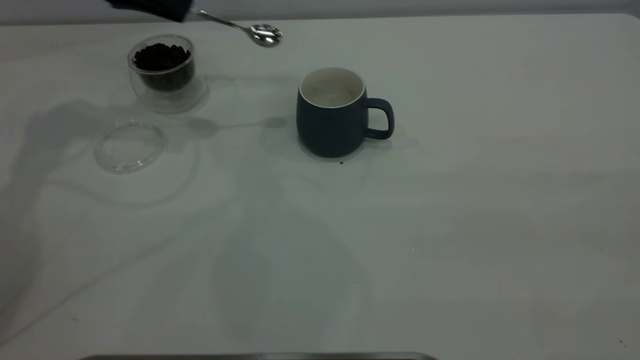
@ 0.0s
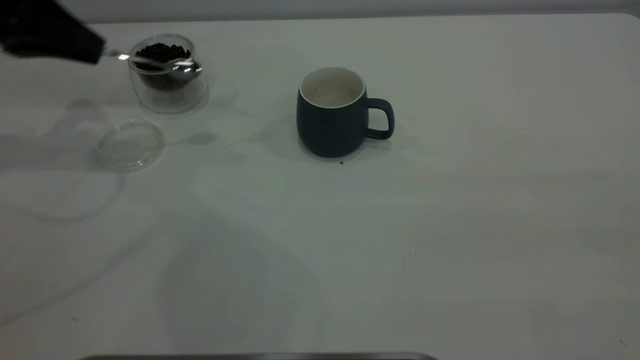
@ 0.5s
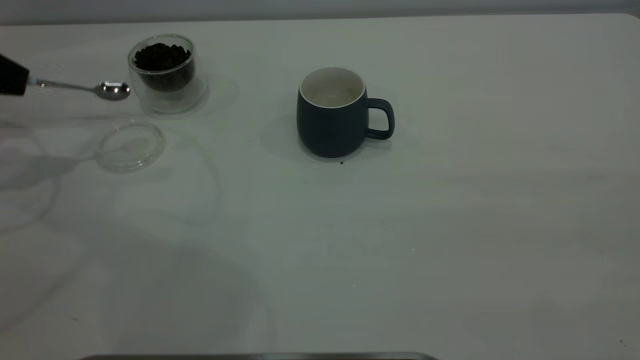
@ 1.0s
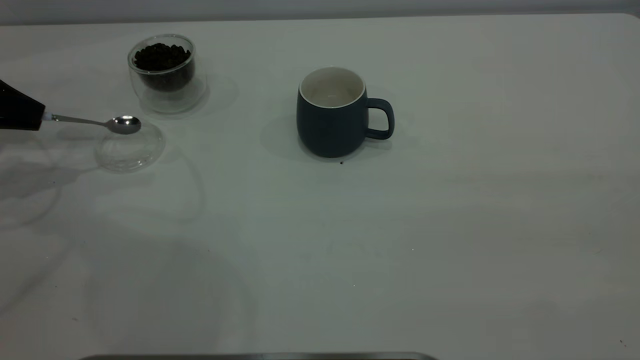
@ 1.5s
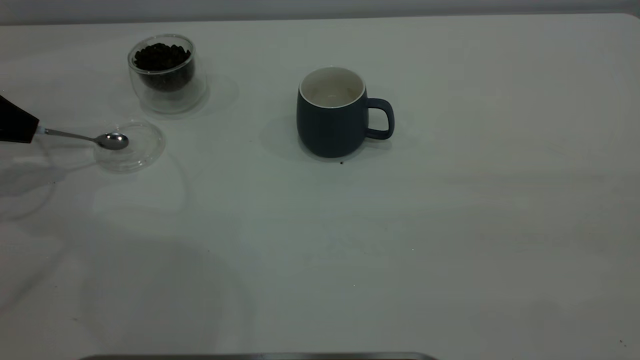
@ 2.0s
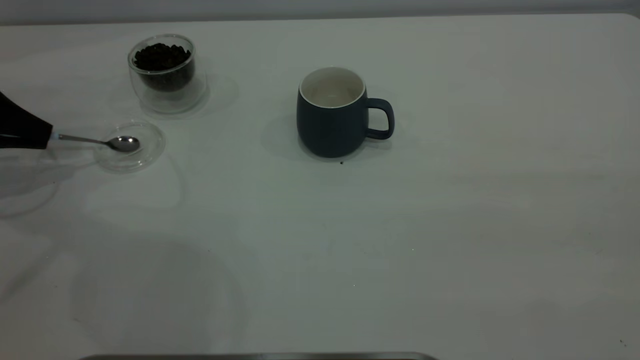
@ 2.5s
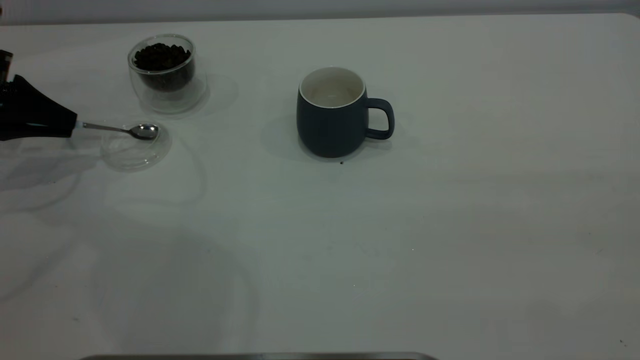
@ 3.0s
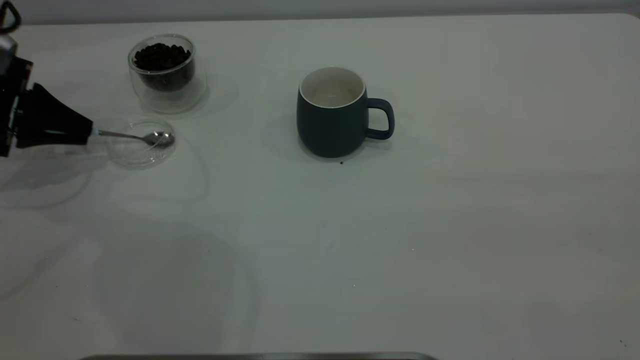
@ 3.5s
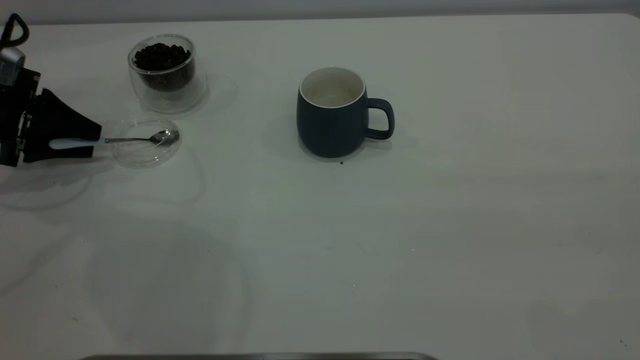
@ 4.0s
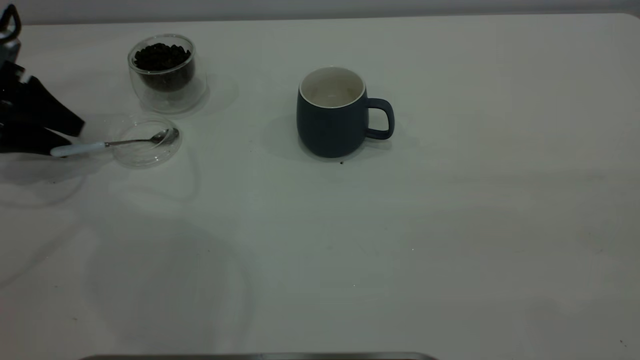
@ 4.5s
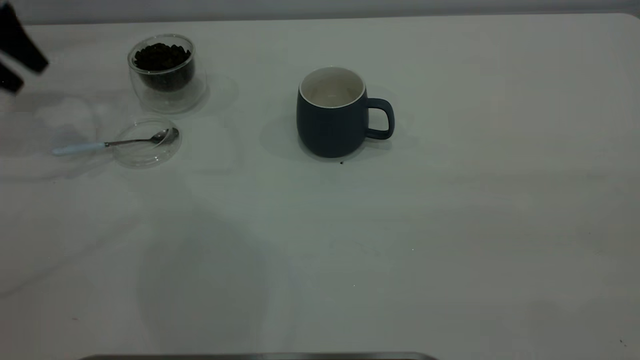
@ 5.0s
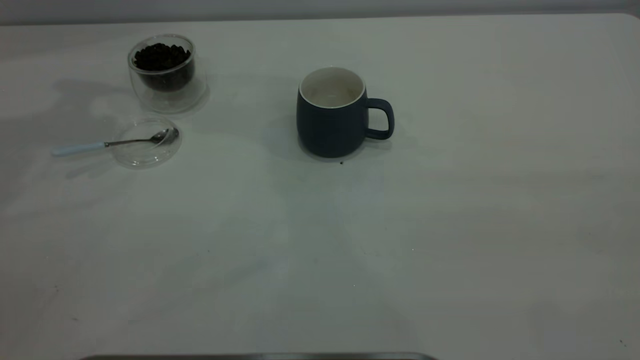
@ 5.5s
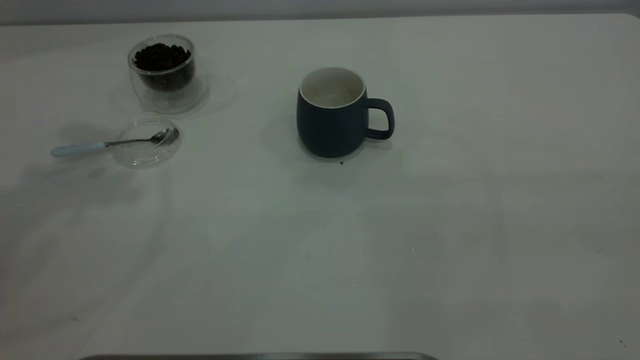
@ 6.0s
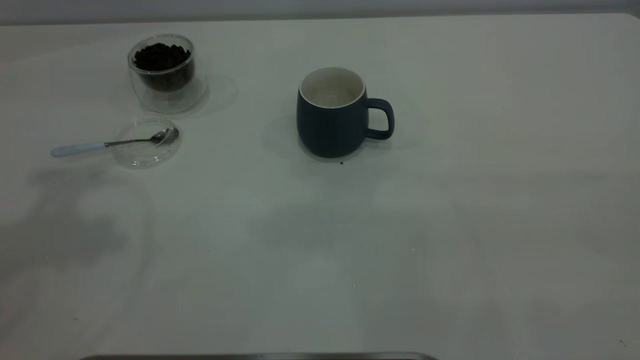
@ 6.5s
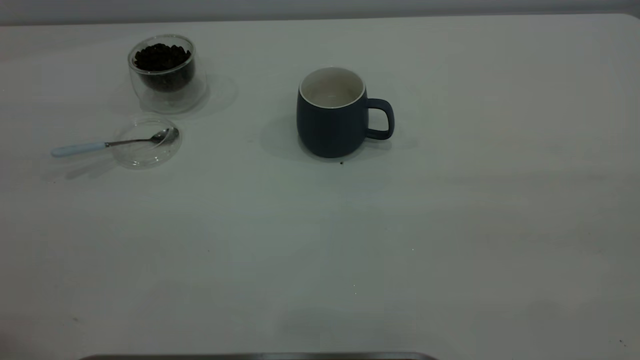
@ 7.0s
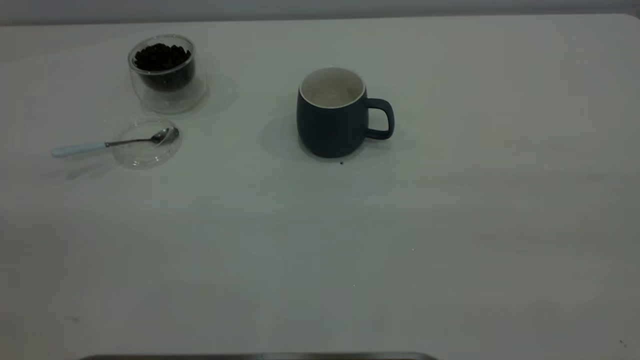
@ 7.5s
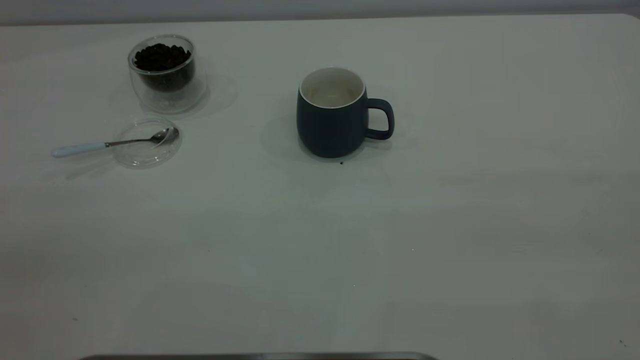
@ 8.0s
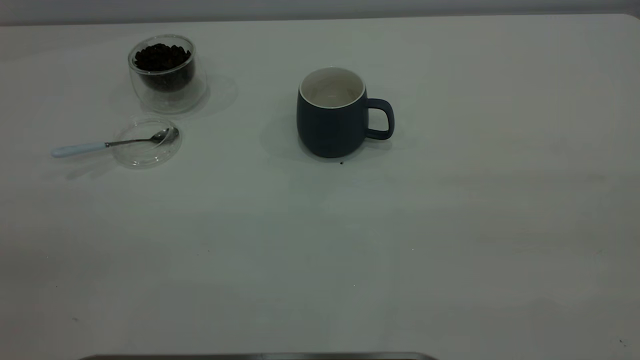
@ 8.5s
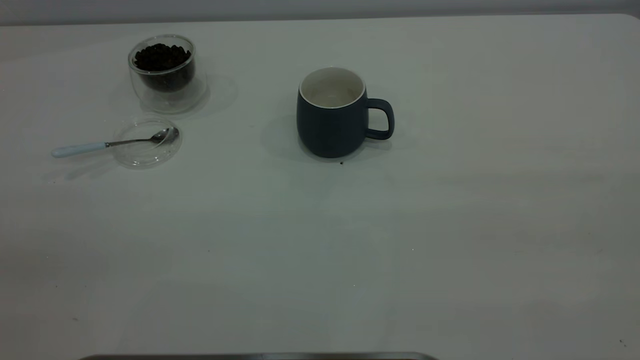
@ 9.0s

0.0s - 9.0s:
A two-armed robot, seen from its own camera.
Task of the whole recording: the right gripper place the grey cup in the center of the table, the left gripper take the blue spoon from the cup lid and scoop out the coffee beans from the coffee cup and put them into the grey cup, the left gripper put the spoon back into the cup lid.
Step, 0.0s - 5.0s: Place the spoon back in its original place.
0.0s - 2.0s: The left gripper is displaced to the left, downward and backward by about 20 cm.
2.0s - 4.5s: The left gripper opens its fingers.
4.5s - 7.0s: The left gripper heads backward, upward and to the right, covering approximately 50 cm.

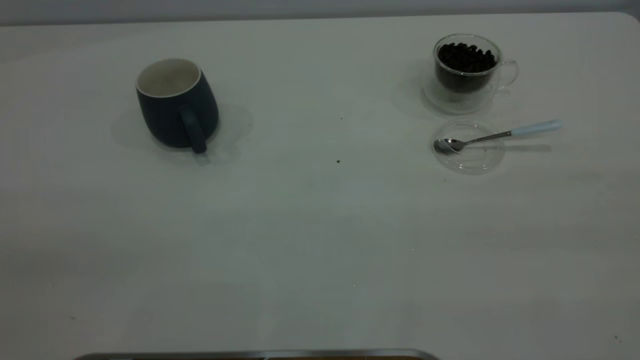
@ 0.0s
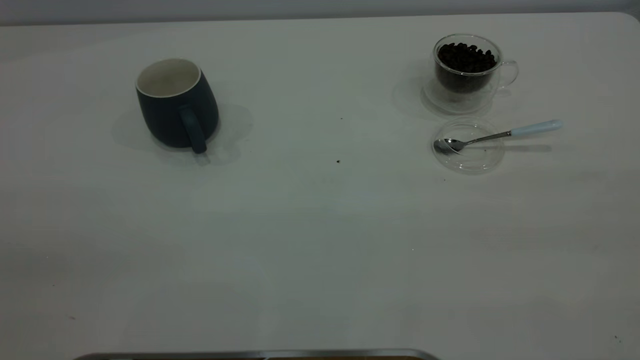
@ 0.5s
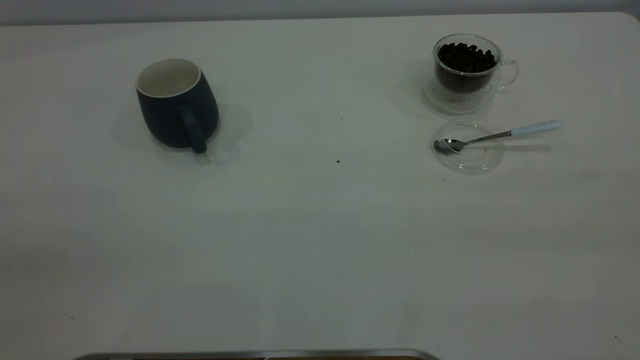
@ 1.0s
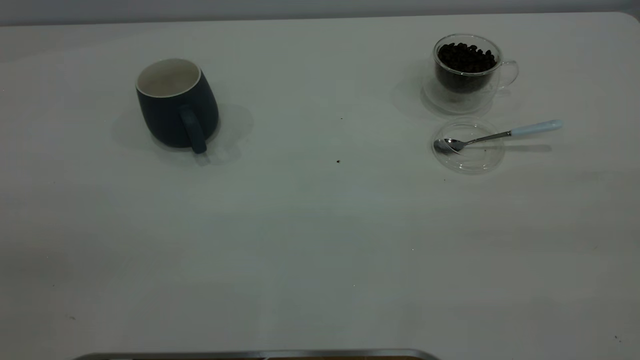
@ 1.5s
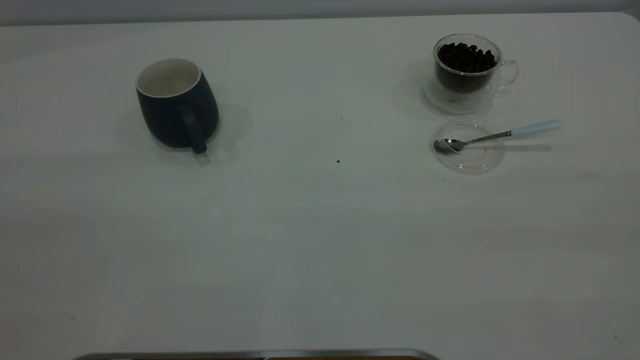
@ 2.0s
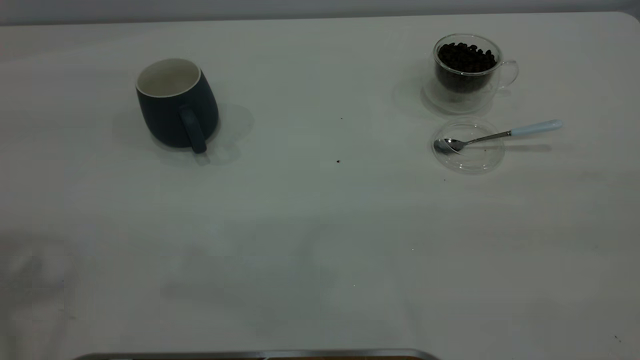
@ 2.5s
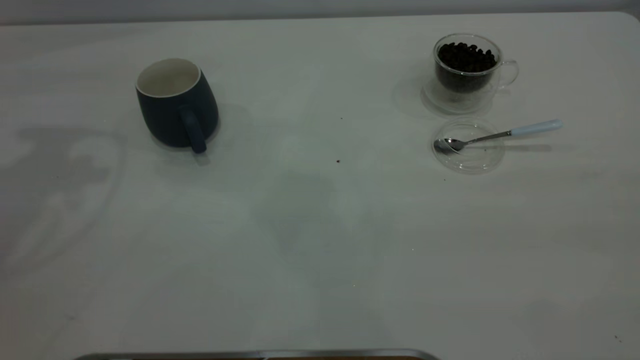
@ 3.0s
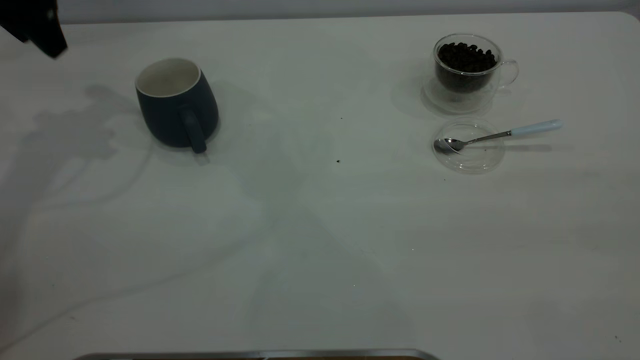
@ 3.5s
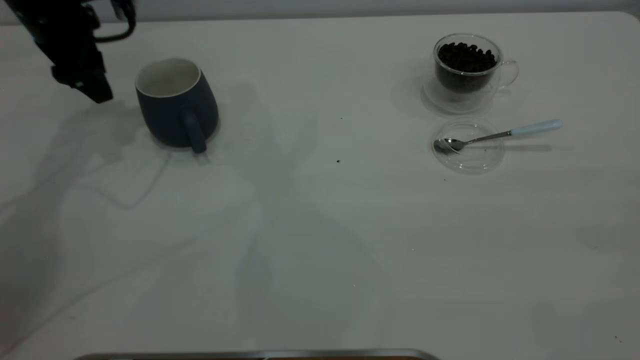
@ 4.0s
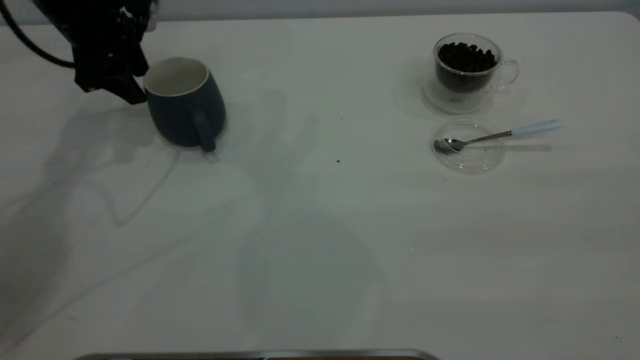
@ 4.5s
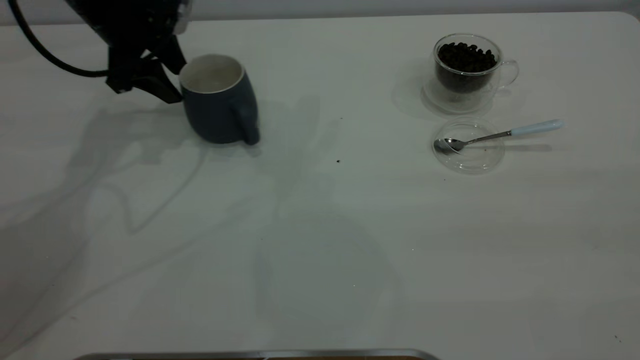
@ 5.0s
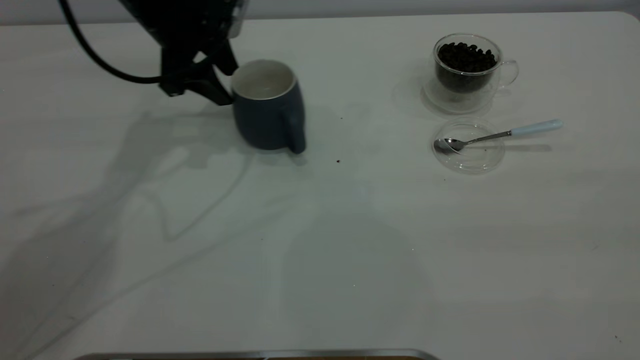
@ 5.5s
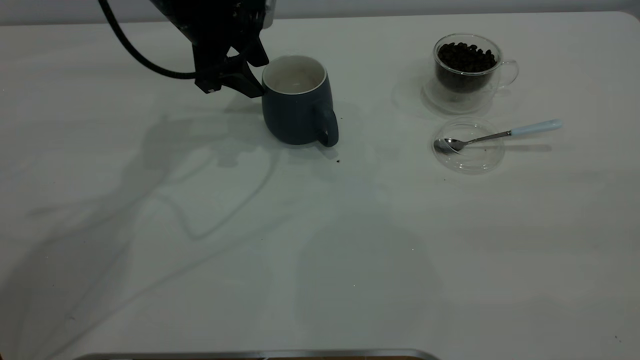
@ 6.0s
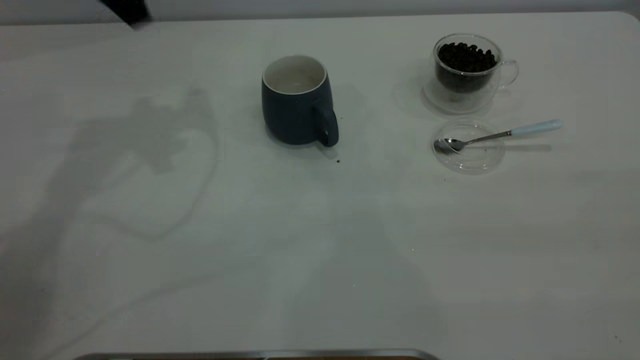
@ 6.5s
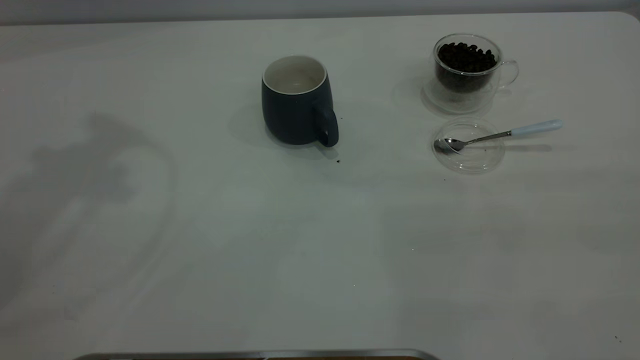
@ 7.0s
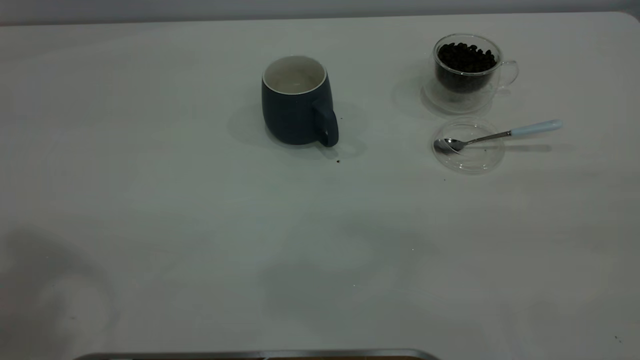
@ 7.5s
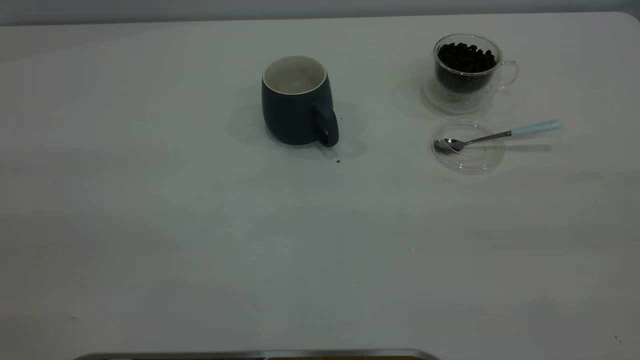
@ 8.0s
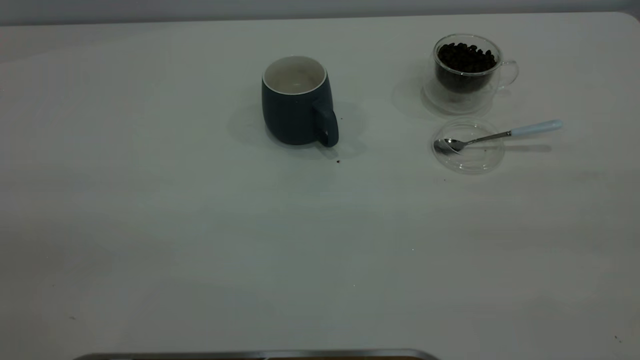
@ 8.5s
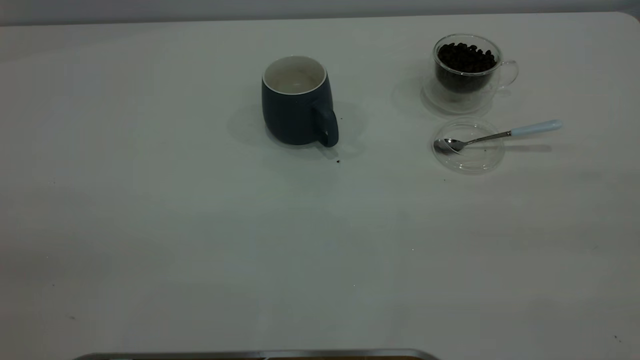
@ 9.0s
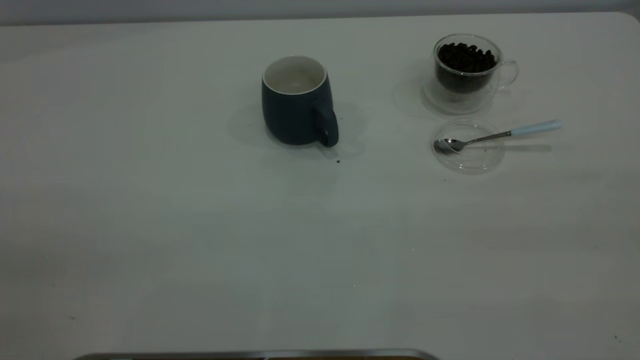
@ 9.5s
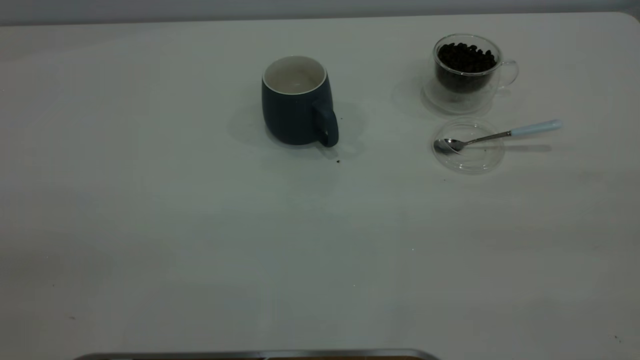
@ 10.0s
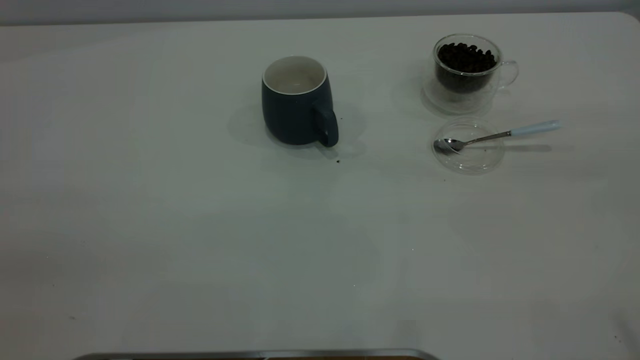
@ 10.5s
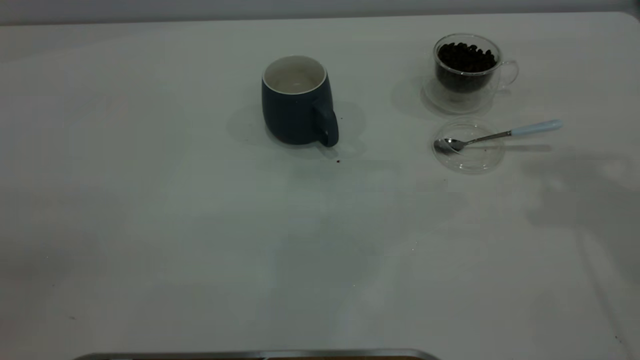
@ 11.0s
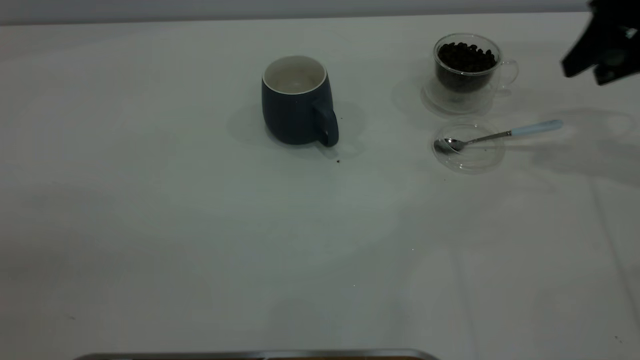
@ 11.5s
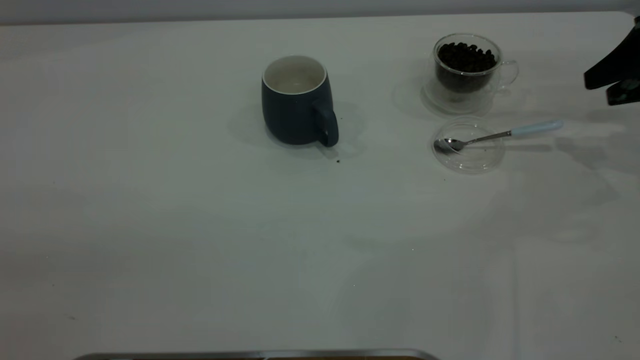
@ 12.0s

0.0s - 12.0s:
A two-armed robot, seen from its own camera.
Task of the whole recording: the left gripper place the grey cup in the center of the table, the right gripper take the blue spoon from the cup lid and scoop out the coffee beans from the coffee cup and put them into the grey cup, the right gripper put the spoon back into the cup lid.
Step, 0.0s - 6.0s: Move the cup to the center of view.
2.0s - 4.0s: The left gripper travels forward and downward by approximately 50 cm.
4.0s - 6.0s: The left gripper travels to the right by about 15 cm.
6.0s - 8.0s: The left gripper travels backward and upward by roughly 40 cm.
10.0s - 12.0s: The right gripper shifts approximately 50 cm forward and downward, and opens up.
